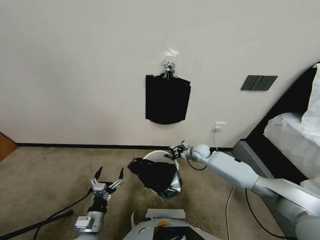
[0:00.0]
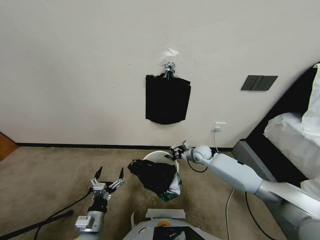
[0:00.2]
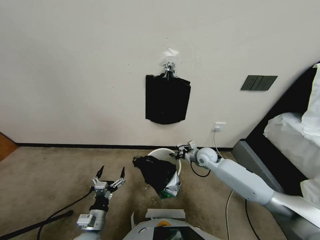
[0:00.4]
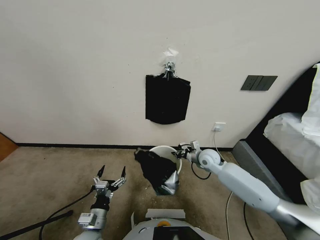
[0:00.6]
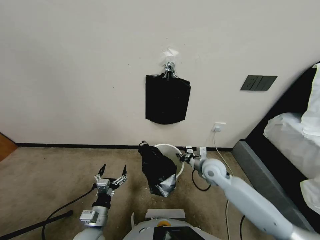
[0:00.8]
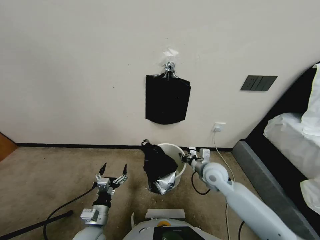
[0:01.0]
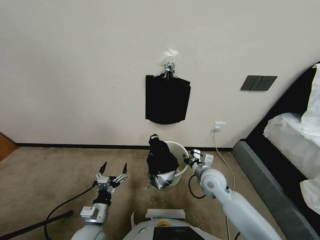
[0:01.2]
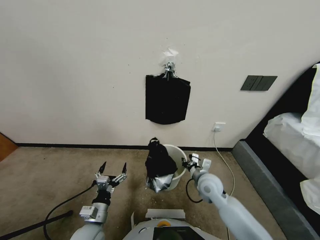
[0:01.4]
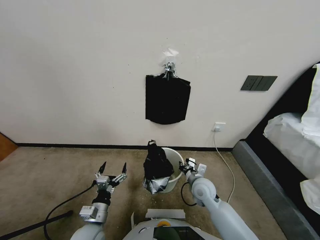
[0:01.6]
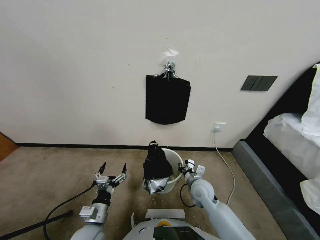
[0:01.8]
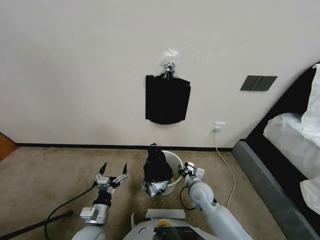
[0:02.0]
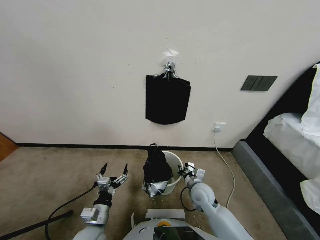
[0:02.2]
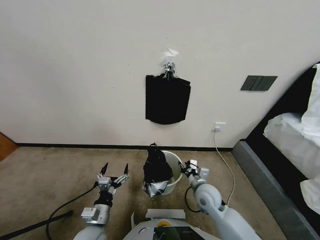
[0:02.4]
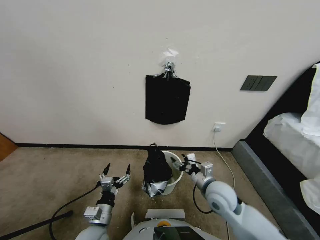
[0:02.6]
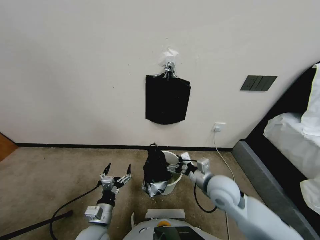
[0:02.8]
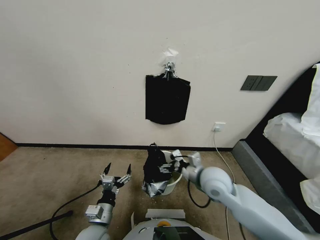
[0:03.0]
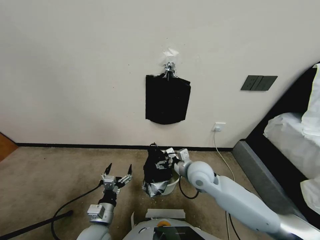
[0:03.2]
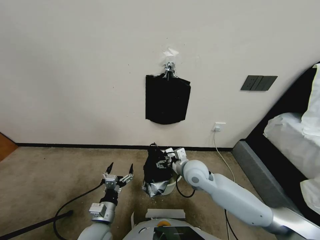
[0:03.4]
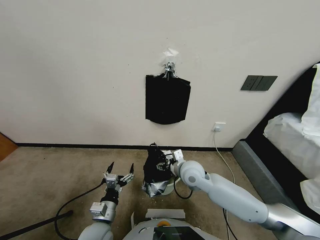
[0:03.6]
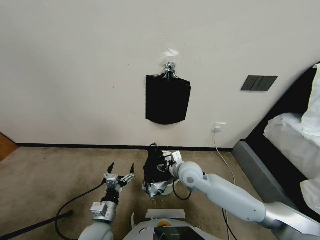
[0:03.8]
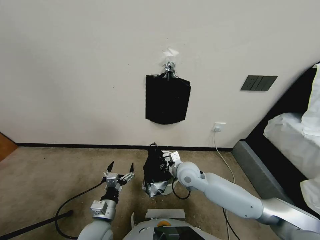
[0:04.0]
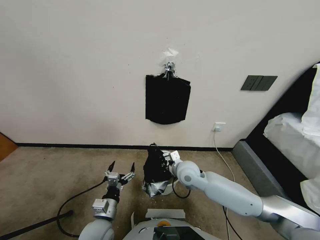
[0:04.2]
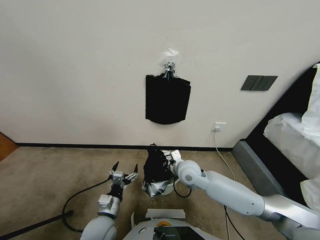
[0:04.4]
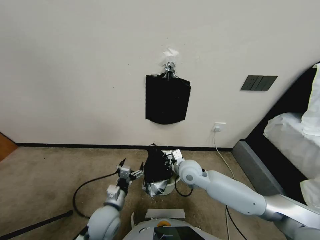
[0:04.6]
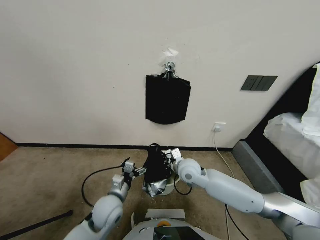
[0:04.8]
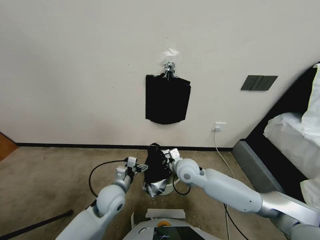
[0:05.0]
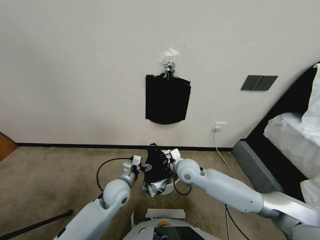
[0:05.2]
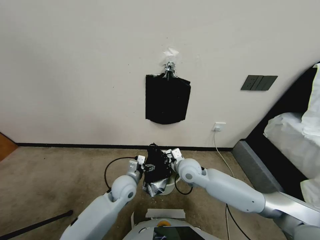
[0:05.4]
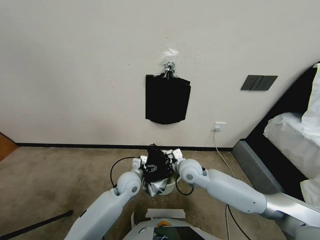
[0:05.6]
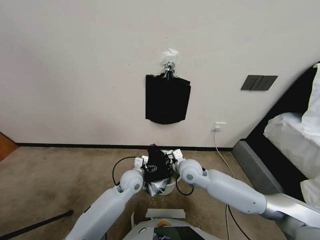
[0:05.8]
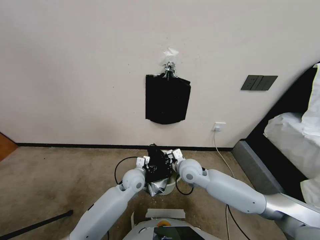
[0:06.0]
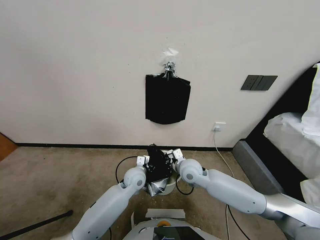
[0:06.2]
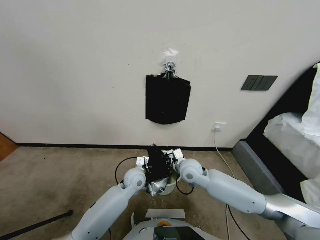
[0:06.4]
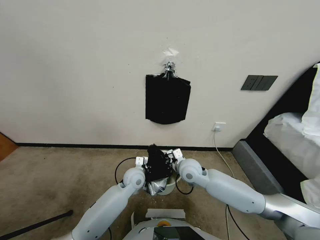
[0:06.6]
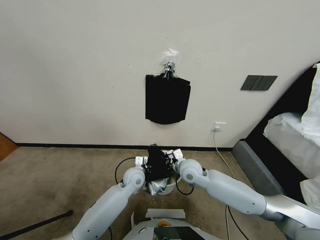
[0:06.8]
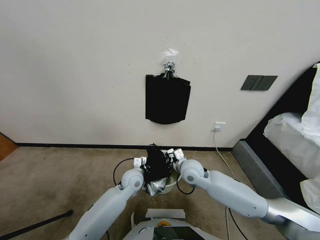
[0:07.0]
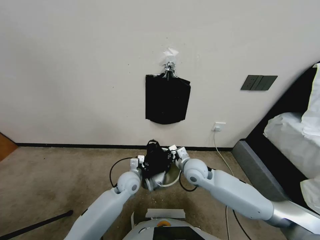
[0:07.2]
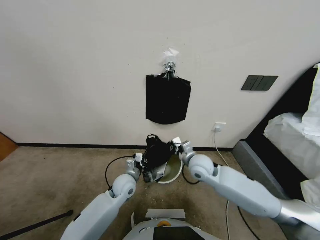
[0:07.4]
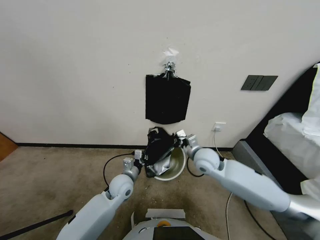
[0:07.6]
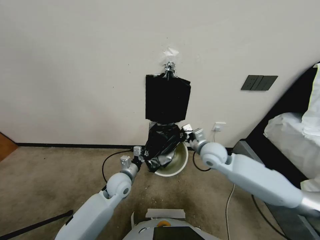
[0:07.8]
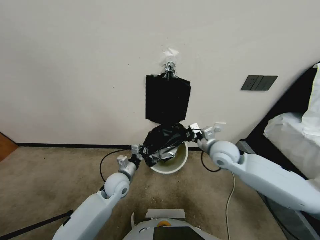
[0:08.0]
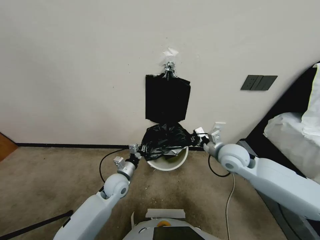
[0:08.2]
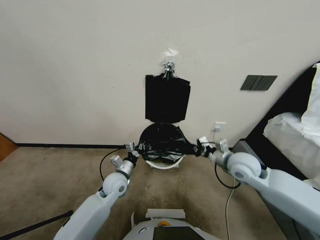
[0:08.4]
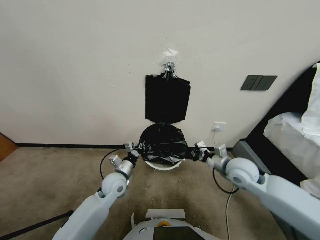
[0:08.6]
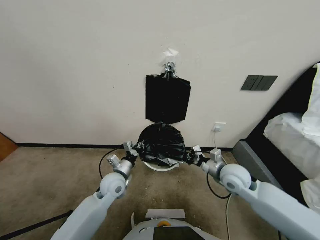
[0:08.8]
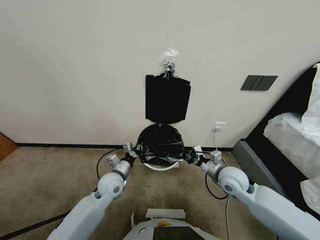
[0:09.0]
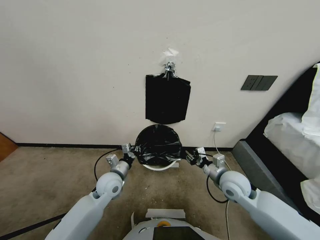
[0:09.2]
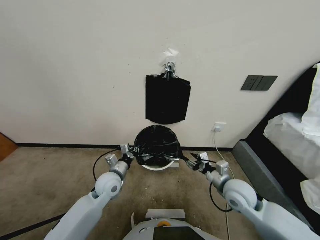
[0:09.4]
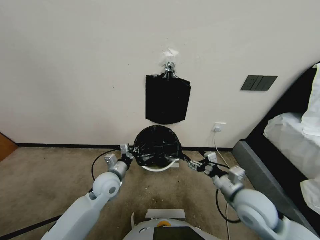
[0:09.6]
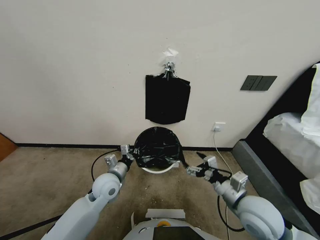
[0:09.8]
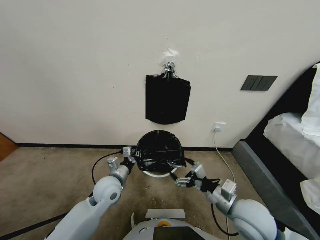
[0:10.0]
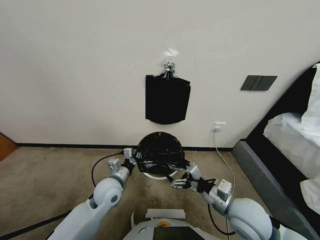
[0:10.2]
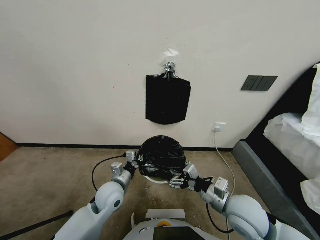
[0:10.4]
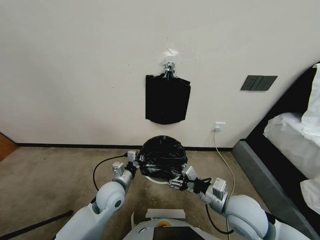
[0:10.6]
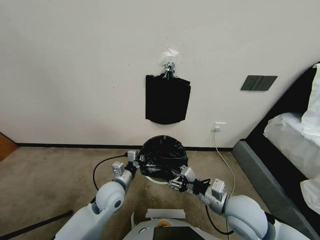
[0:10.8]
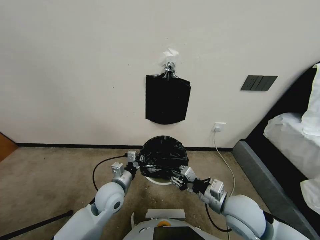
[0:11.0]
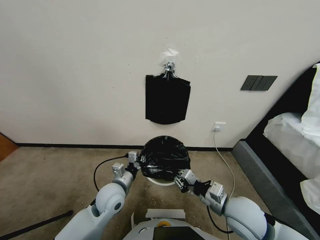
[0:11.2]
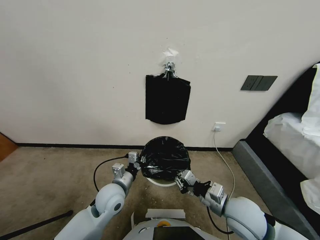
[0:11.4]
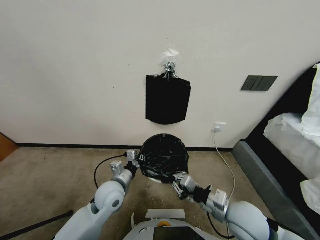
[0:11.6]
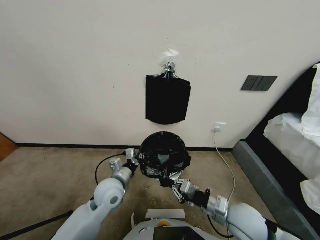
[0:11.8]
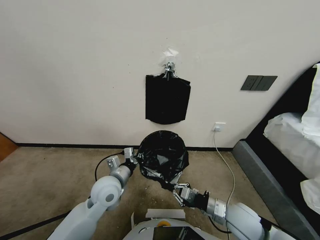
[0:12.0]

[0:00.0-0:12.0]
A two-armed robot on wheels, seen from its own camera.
Task of the whole recording: Place a trash bag onto the trash bin.
0:00.0 to 0:01.6: The right gripper is displaced backward by approximately 20 cm.
0:01.6 to 0:03.0: The right gripper goes some 10 cm upward, and opens.
0:03.0 to 0:04.4: The right gripper changes place by approximately 5 cm, and closes up.
0:04.4 to 0:06.0: The left gripper goes roughly 20 cm forward and to the right.
0:06.0 to 0:07.6: The right gripper heads to the right and upward, covering about 10 cm. Meanwhile the left gripper shifts approximately 5 cm to the left, and closes up.
0:07.6 to 0:09.0: The right gripper goes some 10 cm backward, to the right and downward.
0:09.0 to 0:10.4: The right gripper moves backward, some 10 cm, and opens its fingers.
0:10.4 to 0:12.0: The right gripper is displaced downward by roughly 10 cm, and closes up.

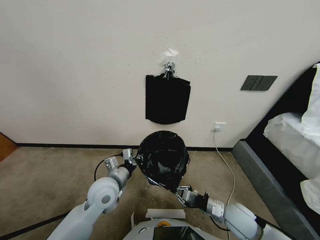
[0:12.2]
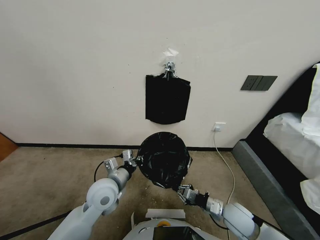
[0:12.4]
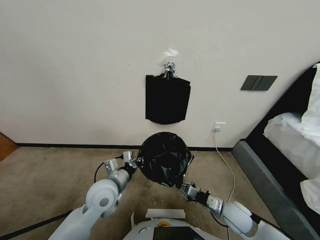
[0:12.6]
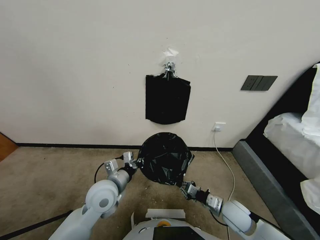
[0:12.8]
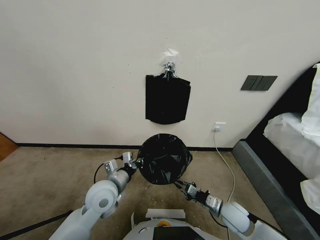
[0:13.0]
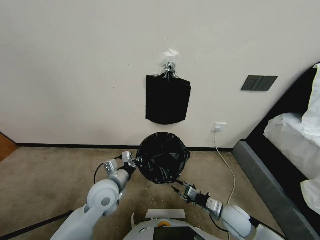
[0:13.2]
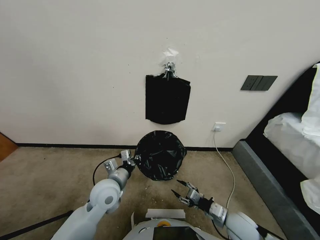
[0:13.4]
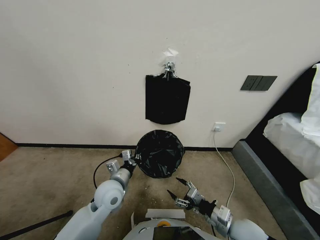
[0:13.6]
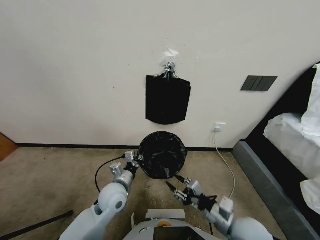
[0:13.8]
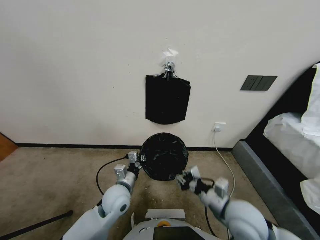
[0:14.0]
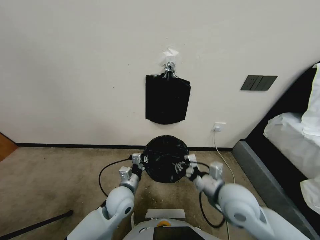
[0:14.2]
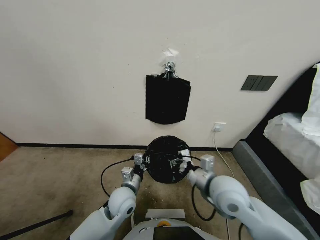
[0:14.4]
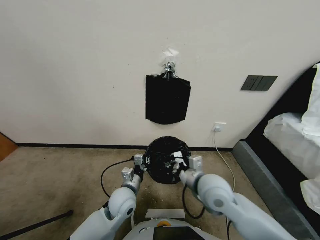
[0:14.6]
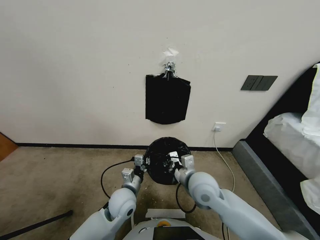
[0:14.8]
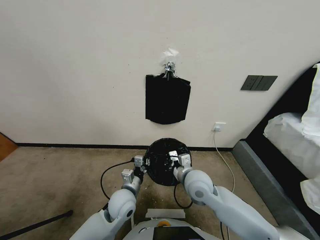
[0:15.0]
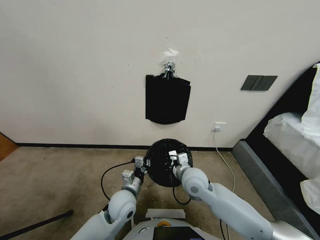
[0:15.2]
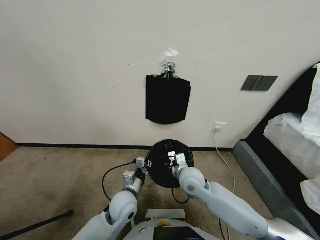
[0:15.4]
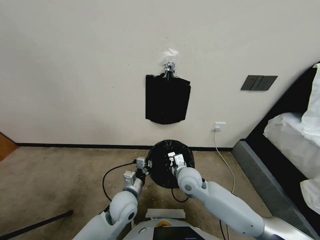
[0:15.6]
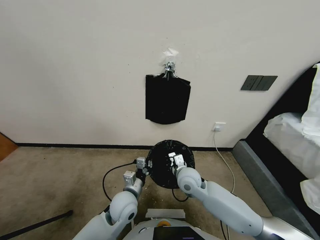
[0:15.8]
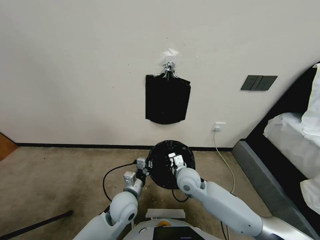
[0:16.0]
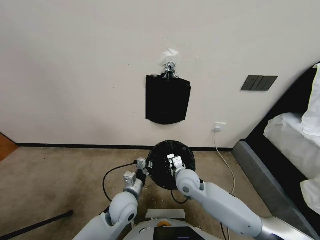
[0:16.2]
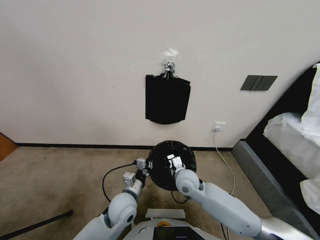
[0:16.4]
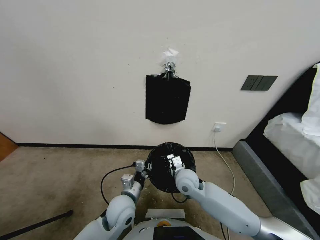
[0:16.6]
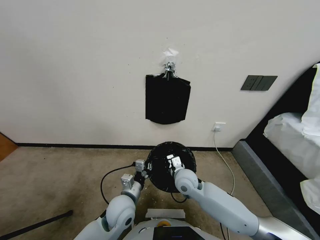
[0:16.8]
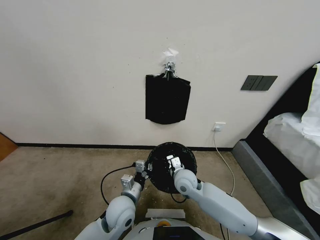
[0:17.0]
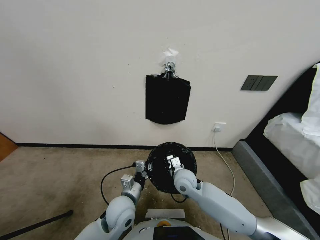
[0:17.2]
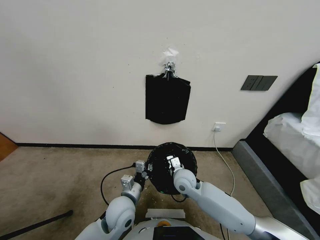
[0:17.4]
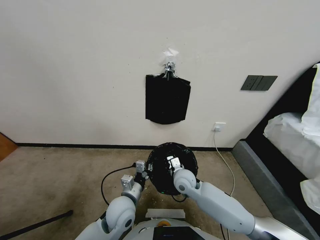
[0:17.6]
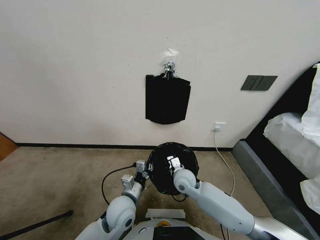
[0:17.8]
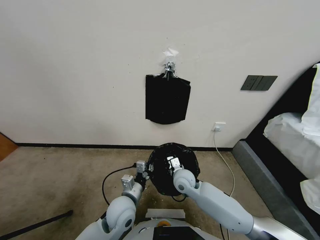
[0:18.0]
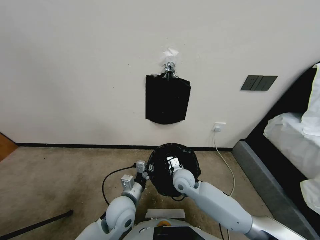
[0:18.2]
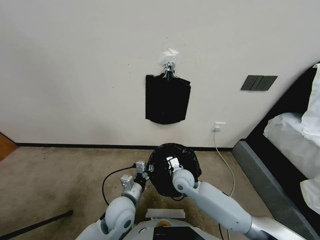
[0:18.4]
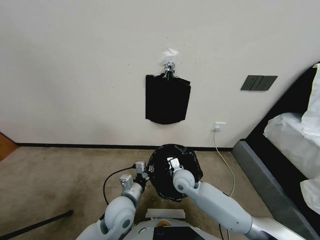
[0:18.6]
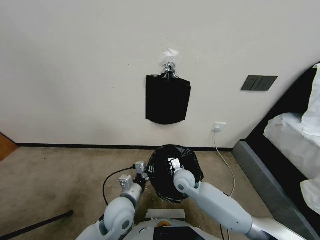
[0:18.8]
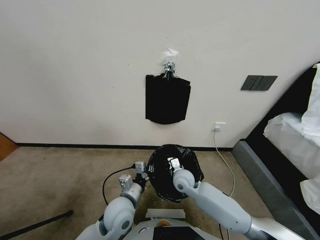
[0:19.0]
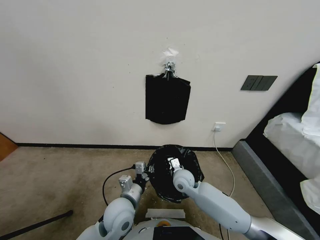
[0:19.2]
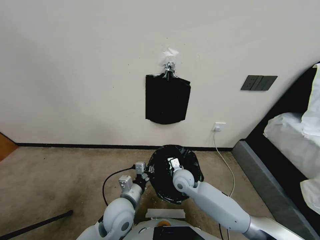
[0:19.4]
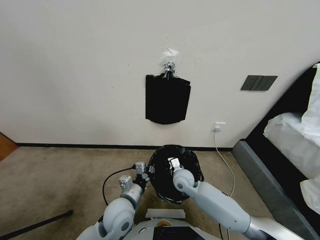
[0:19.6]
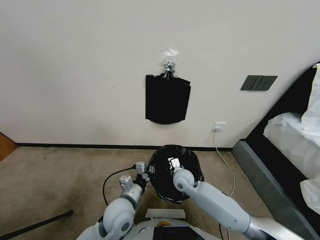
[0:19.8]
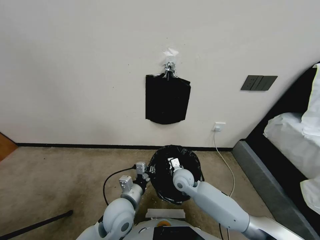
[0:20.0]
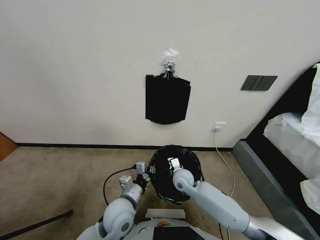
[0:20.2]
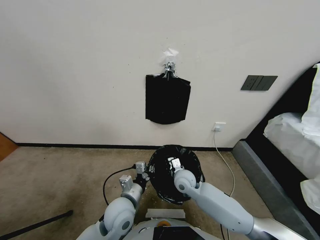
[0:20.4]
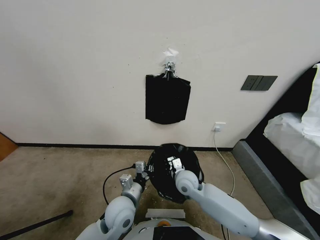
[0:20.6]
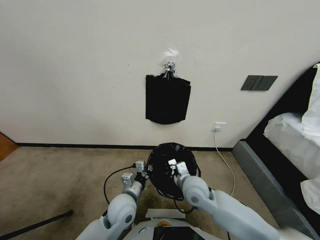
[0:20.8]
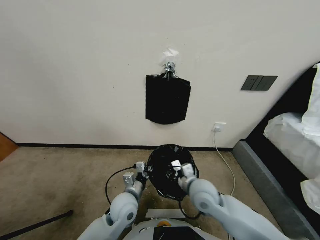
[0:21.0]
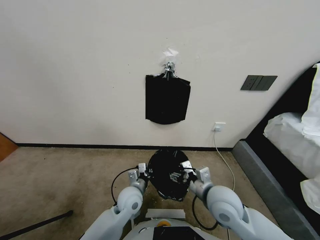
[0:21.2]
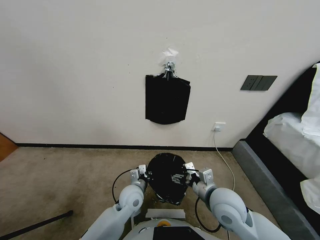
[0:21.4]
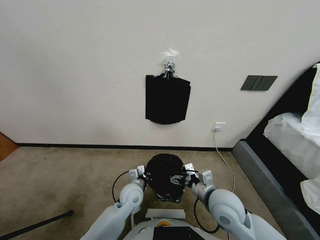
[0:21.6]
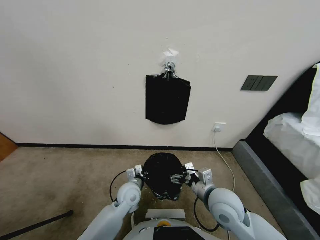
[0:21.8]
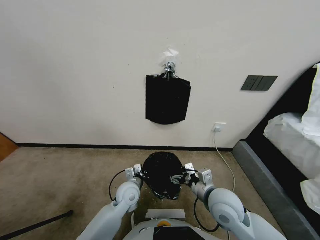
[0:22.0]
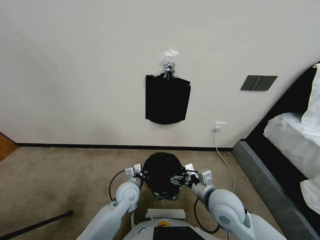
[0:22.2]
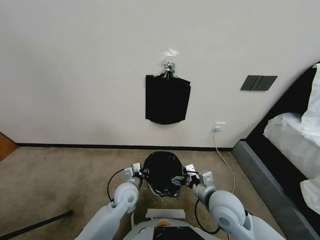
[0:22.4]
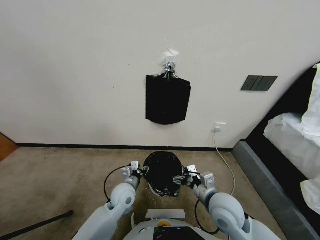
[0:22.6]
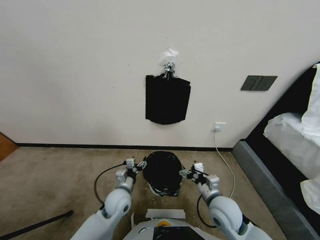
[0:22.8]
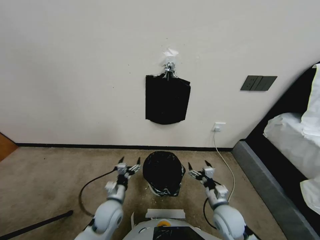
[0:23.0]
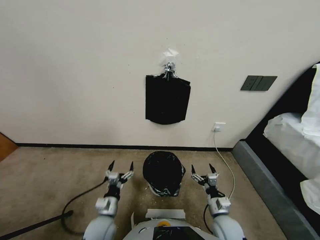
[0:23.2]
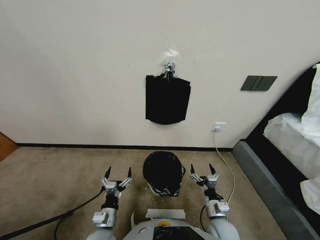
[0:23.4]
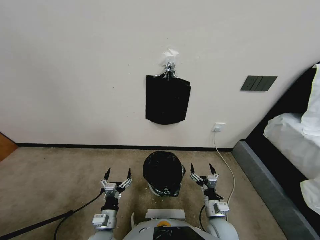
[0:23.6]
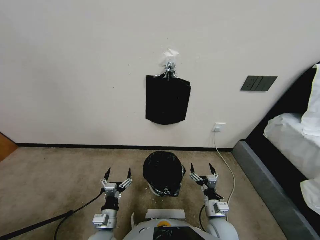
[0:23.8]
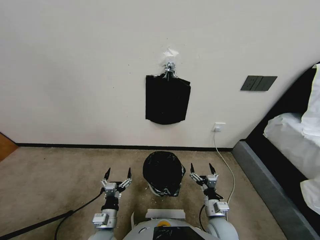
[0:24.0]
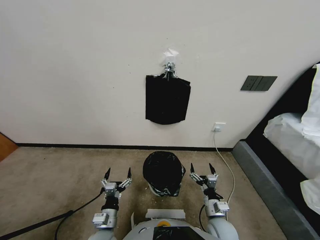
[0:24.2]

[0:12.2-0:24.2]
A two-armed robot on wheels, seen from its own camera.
Task of the whole recording: Place a trash bag onto the trash bin.
0:12.2 to 0:13.8: The right gripper travels upward by approximately 10 cm. The left gripper is displaced downward by some 5 cm.
0:13.8 to 0:15.2: The right gripper travels forward and to the left by some 20 cm.
0:15.2 to 0:16.6: There are only small adjustments of the grippers.
0:16.6 to 0:19.8: The grippers stay close to where they were, moving slightly.
0:19.8 to 0:21.2: The left gripper is displaced forward by approximately 5 cm; the right gripper heads backward, upward and to the right, covering about 20 cm, and opens its fingers.
0:21.2 to 0:22.6: The left gripper opens its fingers.
0:22.6 to 0:24.2: The right gripper travels downward by approximately 10 cm. Meanwhile the left gripper is displaced backward by some 15 cm.
